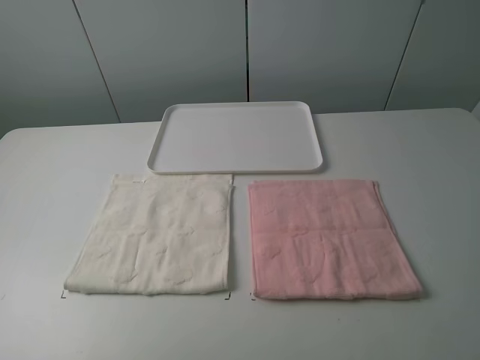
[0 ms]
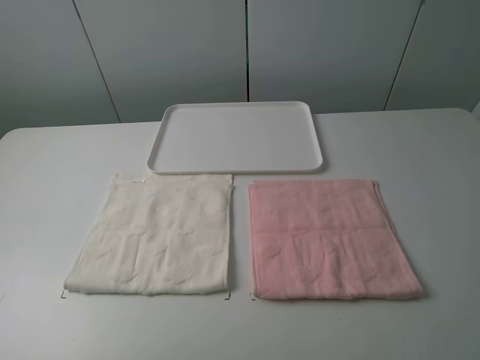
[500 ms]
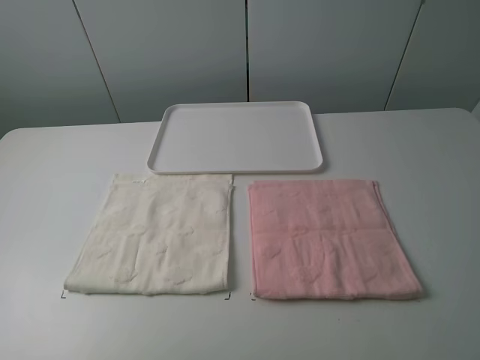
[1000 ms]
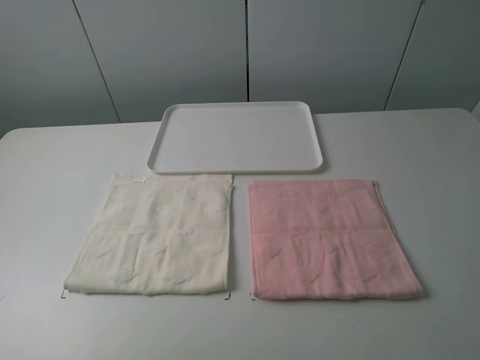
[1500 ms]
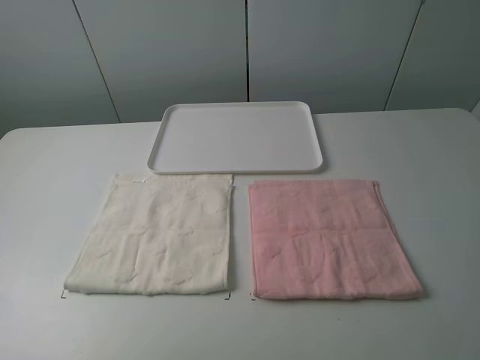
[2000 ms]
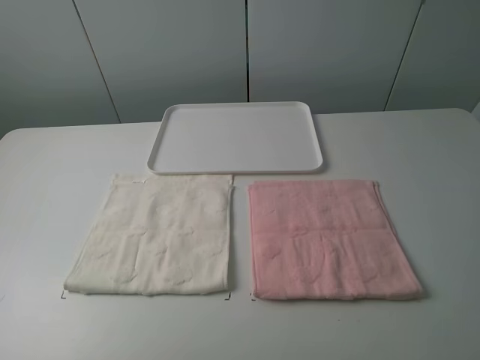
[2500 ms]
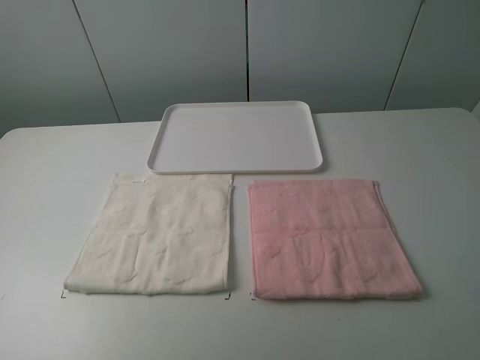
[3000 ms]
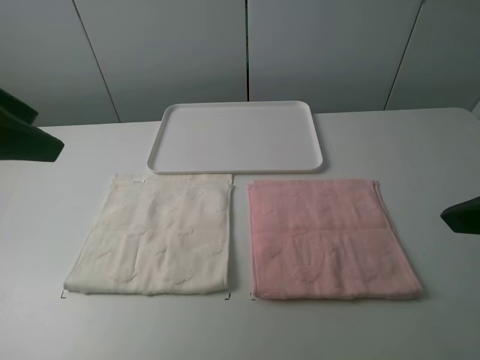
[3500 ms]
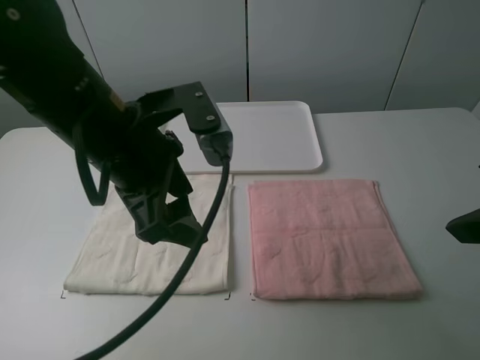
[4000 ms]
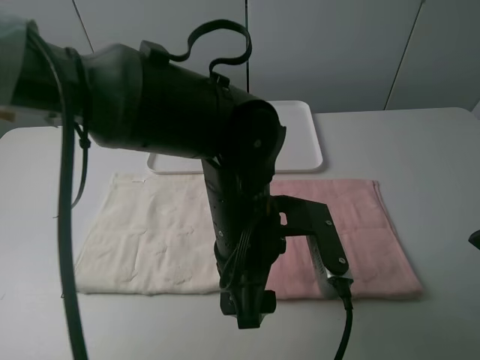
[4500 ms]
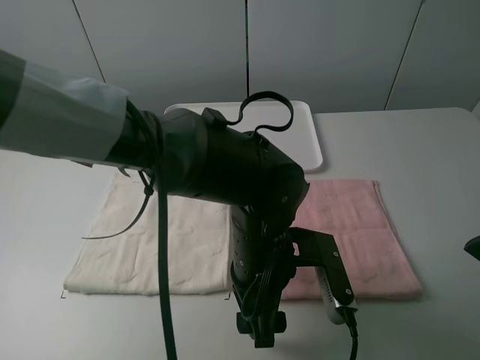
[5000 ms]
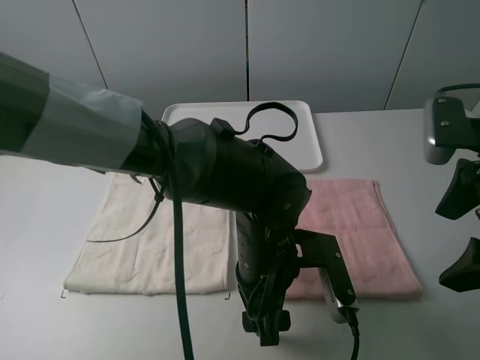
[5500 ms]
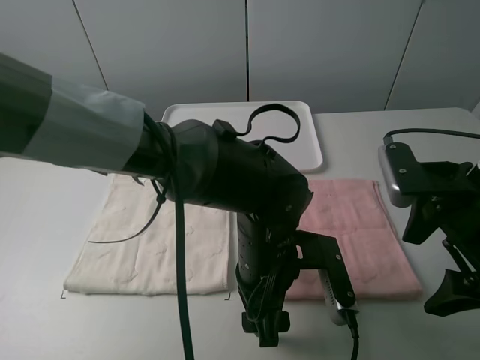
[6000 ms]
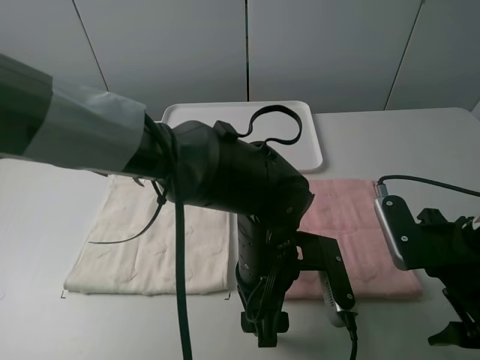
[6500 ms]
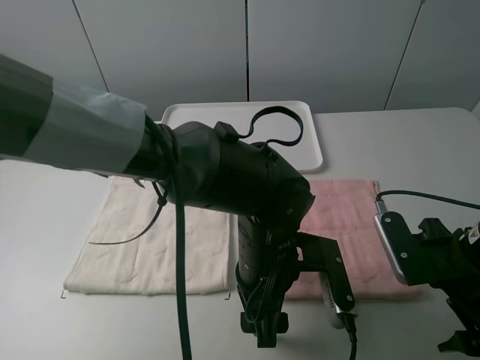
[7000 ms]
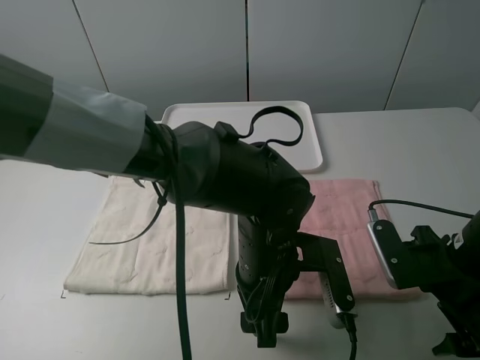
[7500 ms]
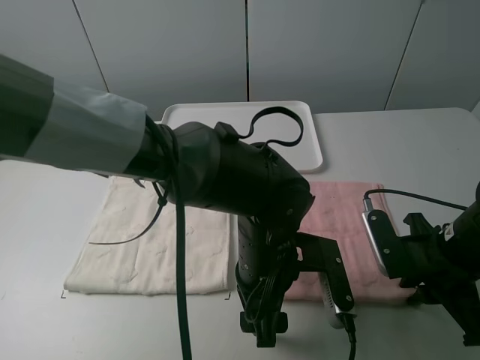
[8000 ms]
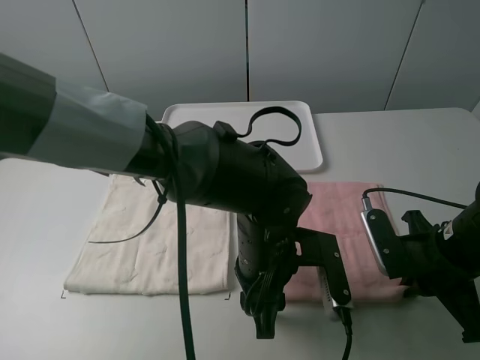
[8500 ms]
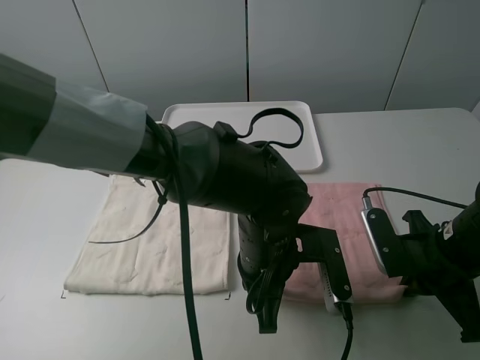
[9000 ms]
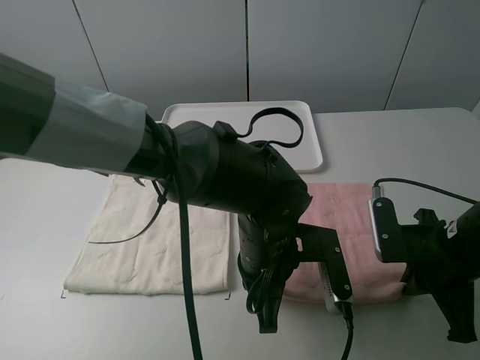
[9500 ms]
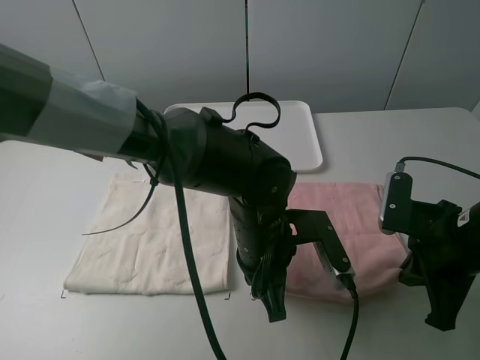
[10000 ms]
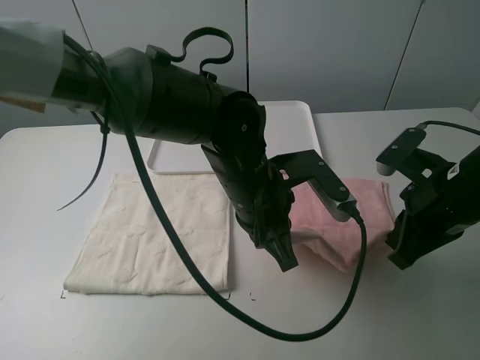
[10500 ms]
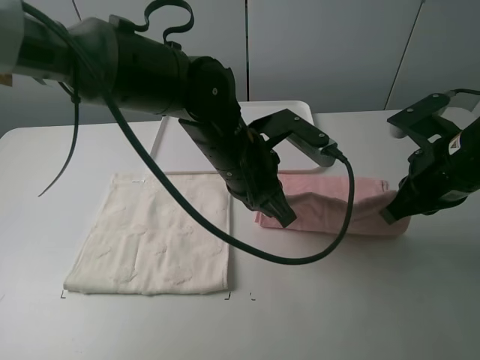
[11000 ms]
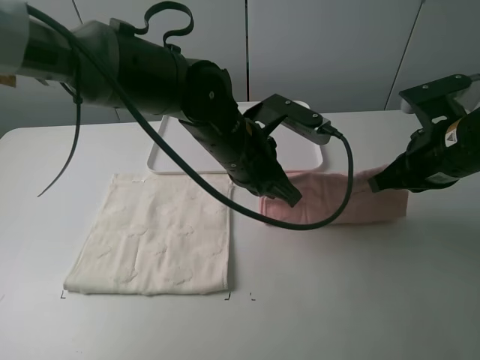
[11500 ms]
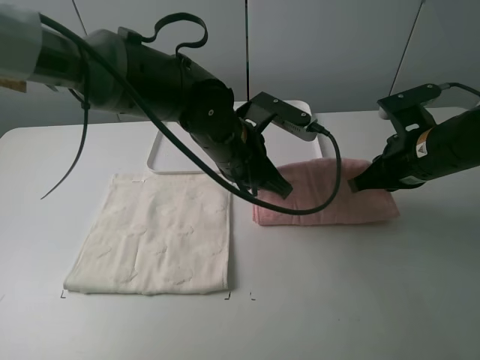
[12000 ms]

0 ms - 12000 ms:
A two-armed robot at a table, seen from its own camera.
Task of the whole recording: fold one of the towels by two grippers and place it on the tray,then fold another towel by two grippers and place it on the folded towel.
Step, 0 ms - 8500 ms: Grasp the pink towel with the left gripper.
0 ms - 2000 ms: Neither gripper changes place.
2000 ms - 4000 ms: The left gripper moves to the right and forward, roughly 30 cm. The right gripper is displaced forward by about 15 cm.
4000 ms - 6000 ms: The right gripper shifts some 10 cm downward. The left gripper heads downward and to the right, covering about 20 cm.
6000 ms - 8000 ms: The right gripper shifts roughly 10 cm downward, and closes.
8000 ms - 10000 ms: The left gripper closes up.
10000 ms - 12000 ms: The left gripper shifts about 10 cm forward and upward. The right gripper shifts about 10 cm forward.

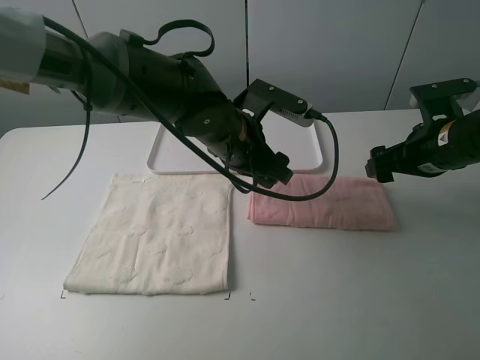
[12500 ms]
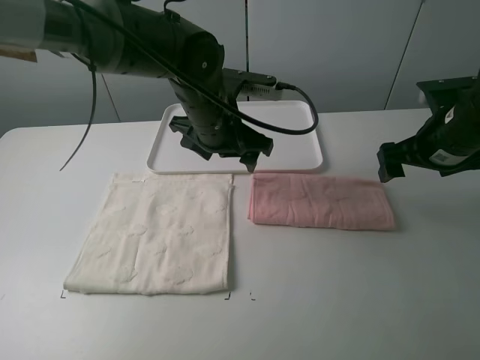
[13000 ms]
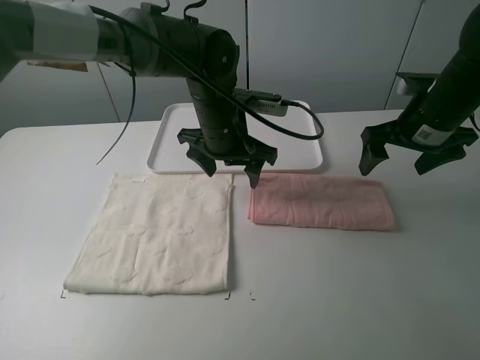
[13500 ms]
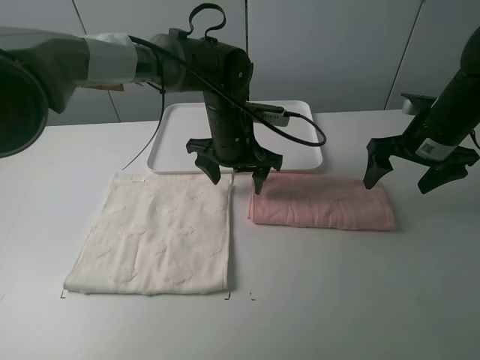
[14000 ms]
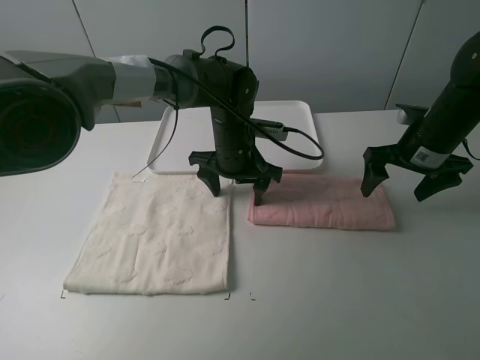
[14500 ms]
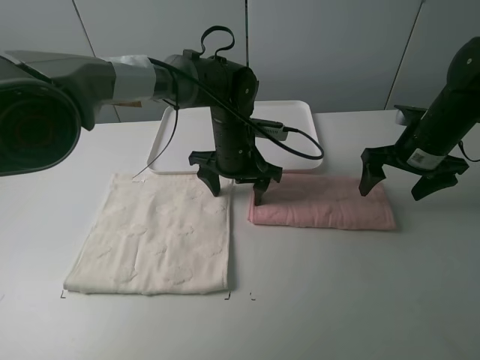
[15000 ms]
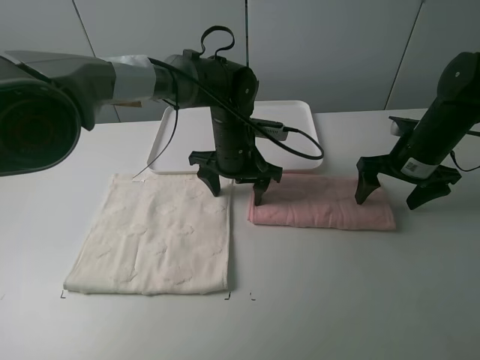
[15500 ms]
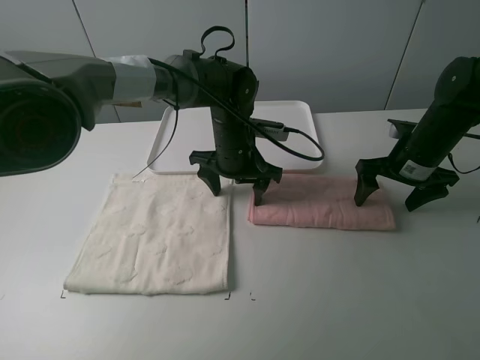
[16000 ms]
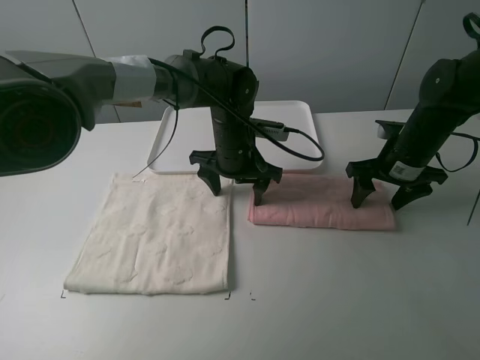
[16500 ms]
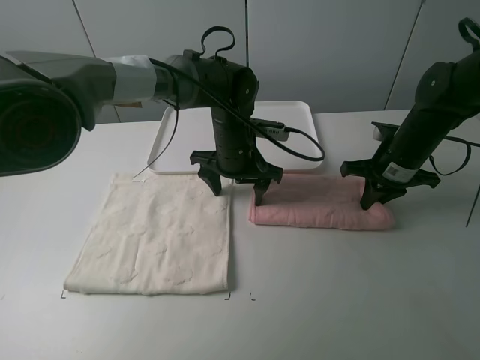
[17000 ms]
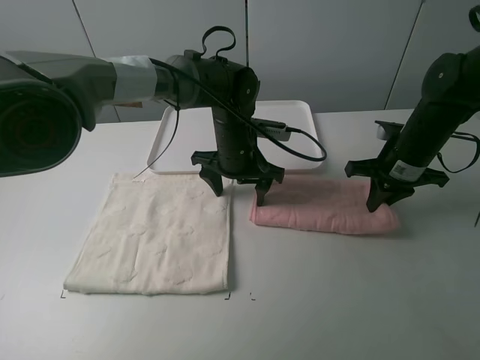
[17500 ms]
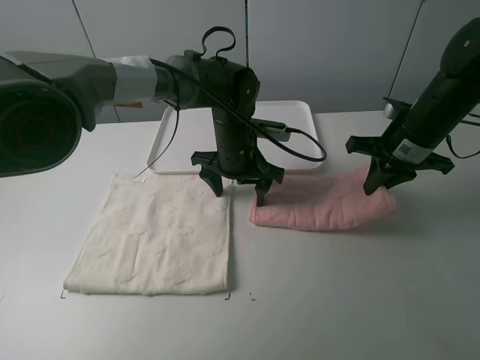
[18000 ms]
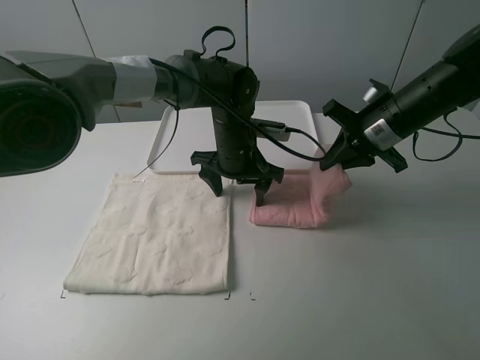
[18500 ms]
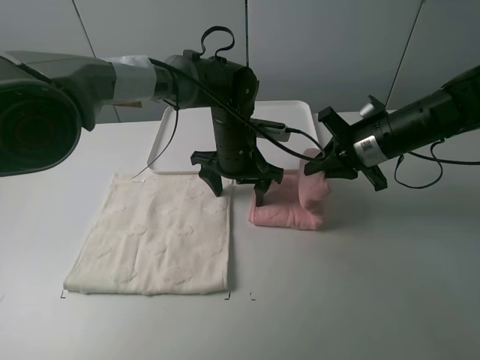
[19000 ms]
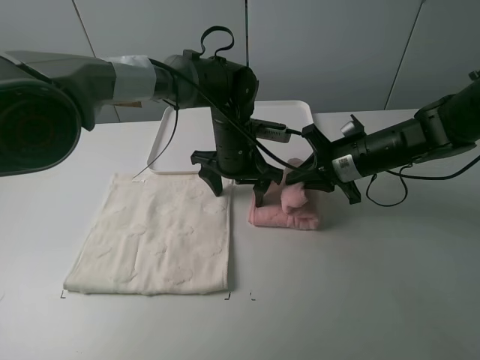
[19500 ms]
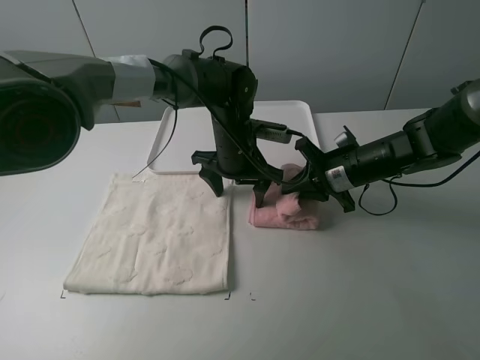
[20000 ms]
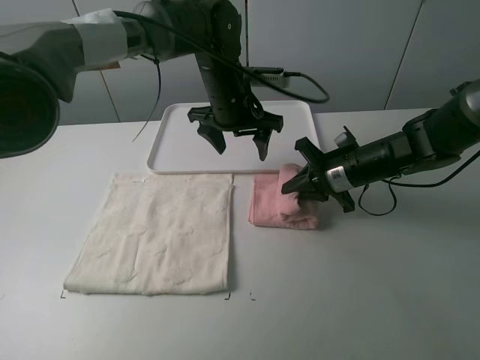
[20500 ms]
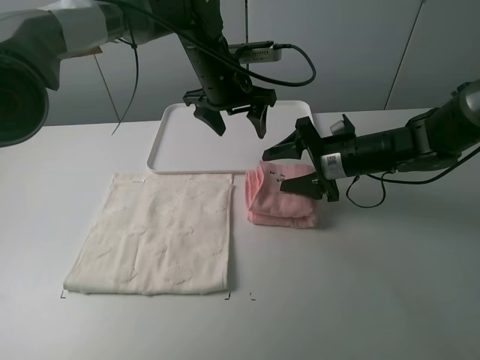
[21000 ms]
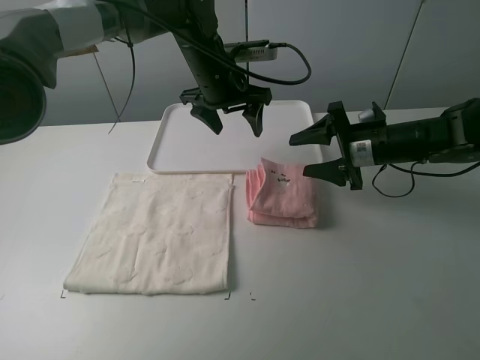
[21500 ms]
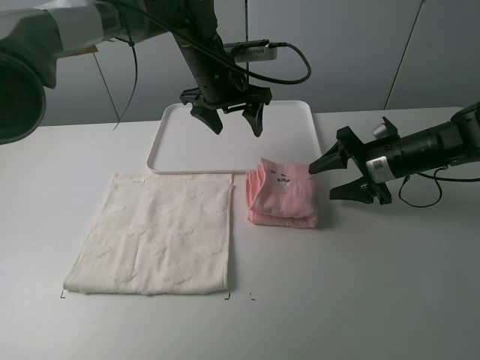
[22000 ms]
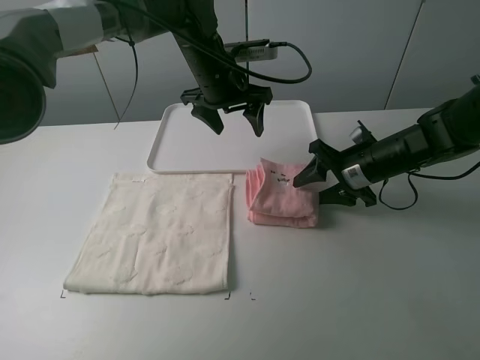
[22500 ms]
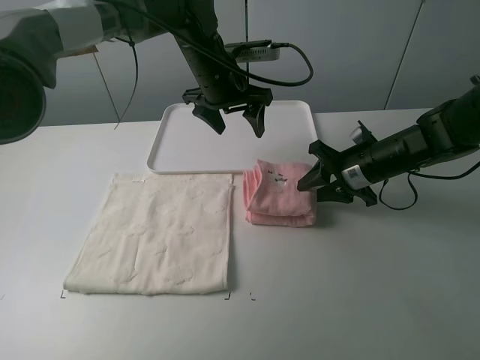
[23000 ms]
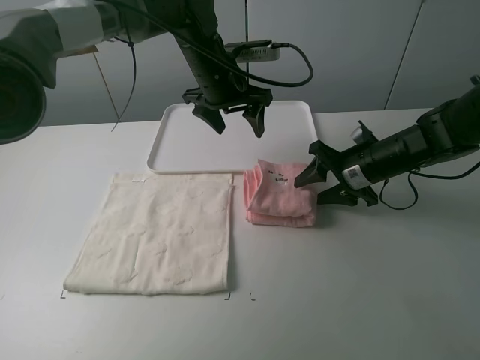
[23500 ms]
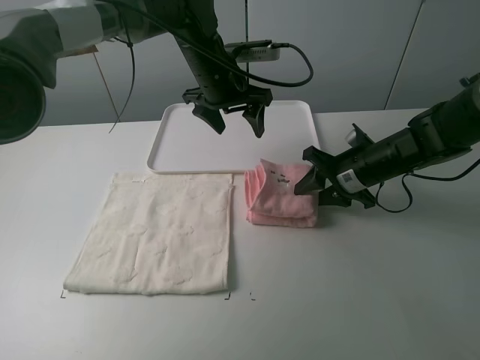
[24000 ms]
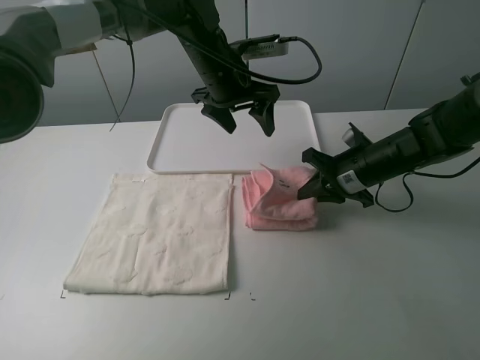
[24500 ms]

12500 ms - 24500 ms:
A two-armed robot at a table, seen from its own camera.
Task of the whole recording: fold one of the towels by two grippers and place it on the tray,then fold another towel by two grippers and place it on the folded towel.
Step, 12500 ms - 14500 ms: Press the pink towel with the left gripper.
Step, 15000 ms - 16500 ms: Grasp the pink towel with the right gripper.
Step, 17000 ms - 21000 ms: Fold the pink towel from right to left with right gripper.
Step, 21500 ms - 24000 ms: Grasp the pink towel with the right gripper.
12500 ms - 14500 ms: The left gripper heads forward and downward, covering roughly 10 cm.
14500 ms - 16500 ms: The right gripper closes up.
16500 ms - 18500 ms: The right gripper travels upward by some 5 cm, and closes up.
18500 ms - 20500 ms: The left gripper moves upward, about 10 cm. The right gripper shifts approximately 10 cm downward.
20500 ms - 22500 ms: The right gripper opens its fingers.
22500 ms - 24500 ms: The right gripper closes.

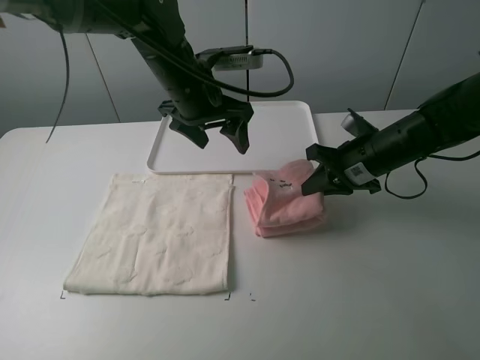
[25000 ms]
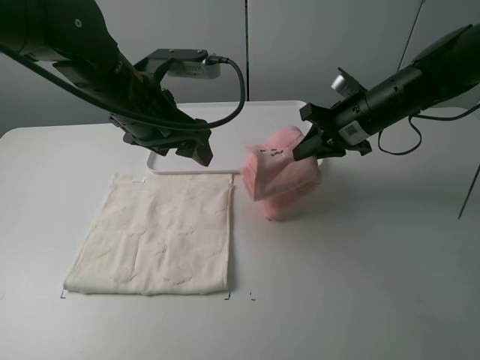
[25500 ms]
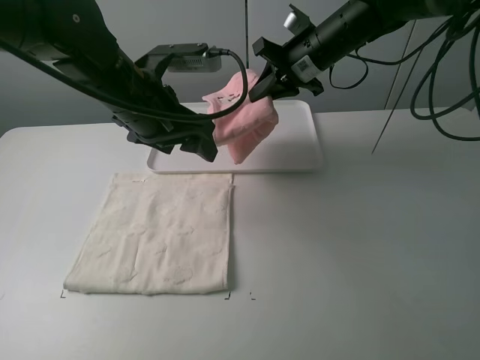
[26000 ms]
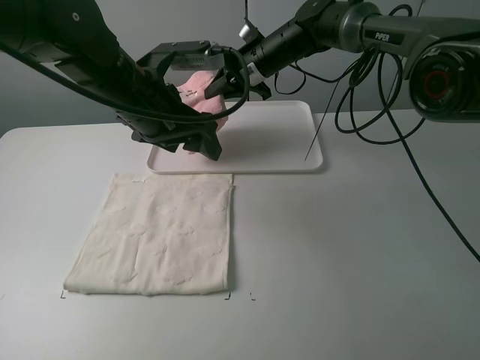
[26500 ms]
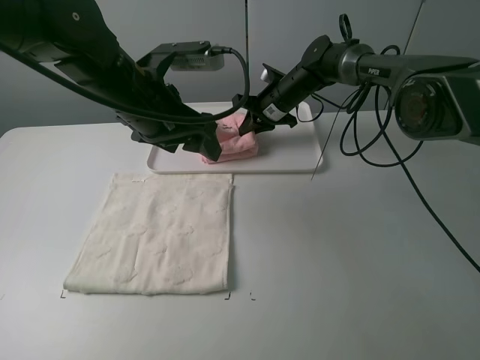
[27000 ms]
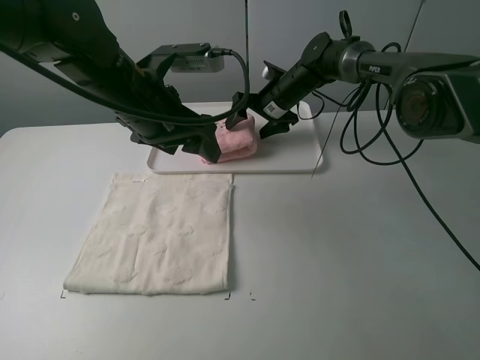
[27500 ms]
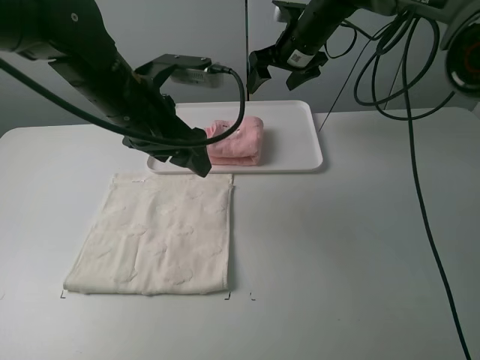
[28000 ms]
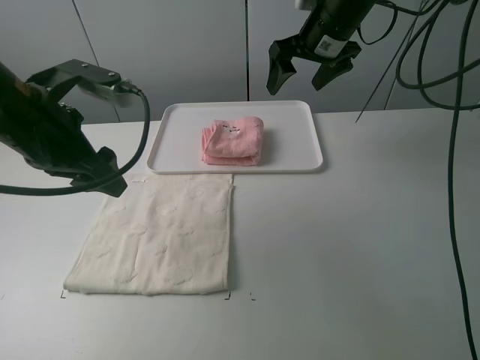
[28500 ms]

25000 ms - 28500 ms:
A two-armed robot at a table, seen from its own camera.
Task of the whole recording: fold one of the towels by two grippers and place it on the tray,then fold another towel by two grippers and place it on the folded towel.
Step, 25000 ms - 27500 ms: Move the pink towel to the plate with the right gripper.
25000 ms - 27000 ms: The right gripper travels forward and to the left by some 20 cm. Meanwhile the left gripper goes approximately 5 cm backward.
27000 ms - 28500 ms: The left gripper is displaced to the left and backward by some 15 cm. Meanwhile the right gripper goes some 20 cm upward and backward, and opens.
